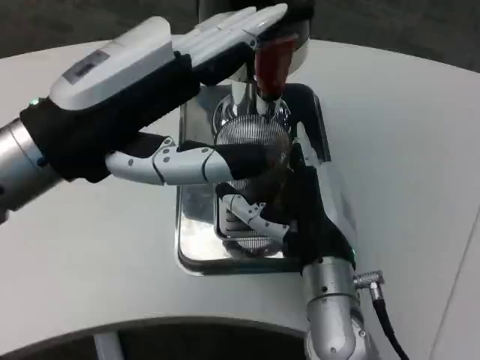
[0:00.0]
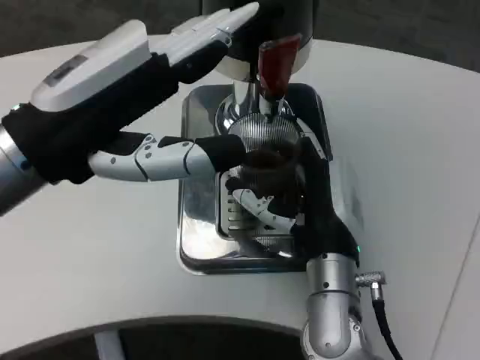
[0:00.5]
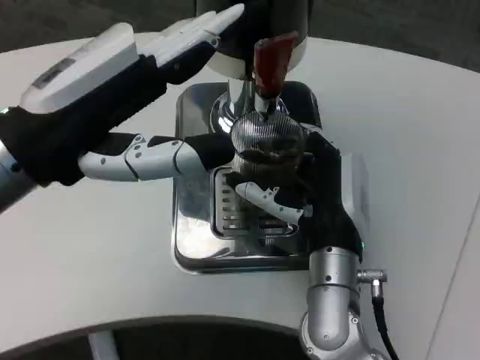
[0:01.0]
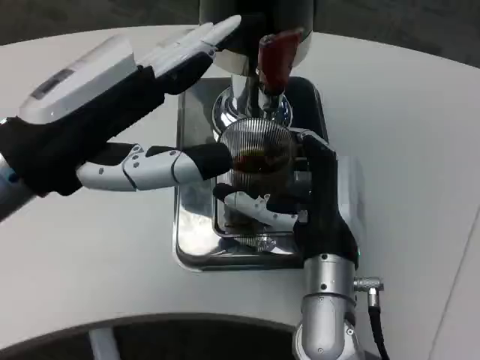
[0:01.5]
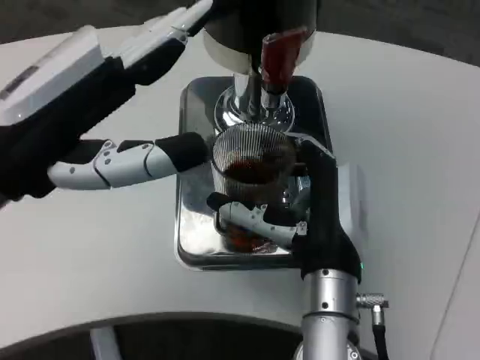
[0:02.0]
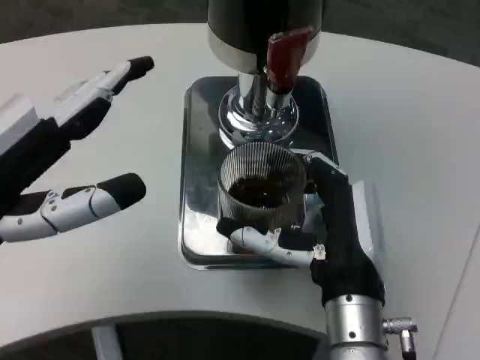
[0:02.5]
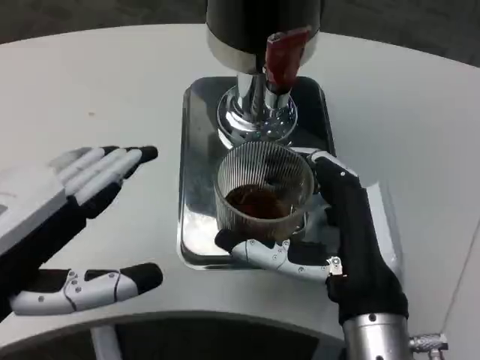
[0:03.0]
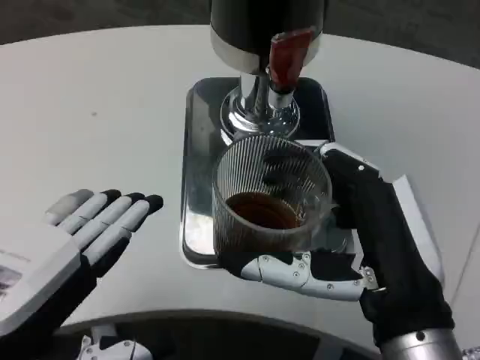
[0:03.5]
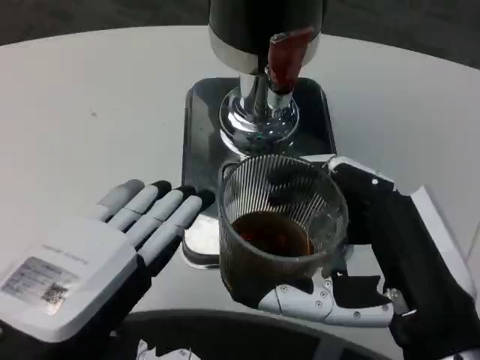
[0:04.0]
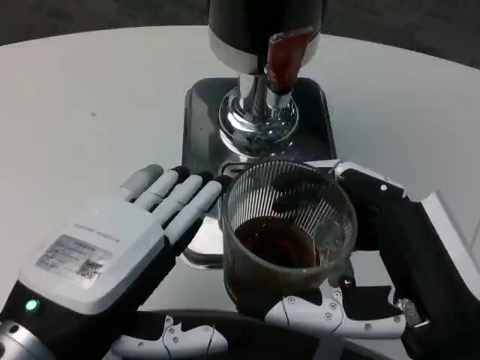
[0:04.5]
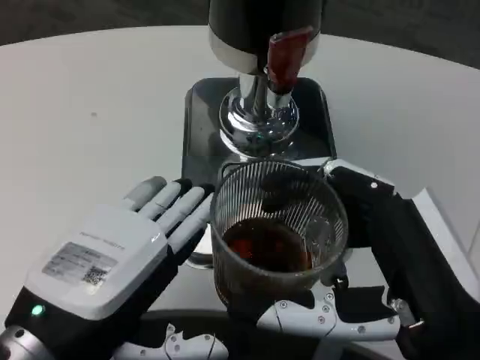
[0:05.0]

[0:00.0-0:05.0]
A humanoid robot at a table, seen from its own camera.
Task of the whole recording: Grasp the cup under the faucet to collect the drink, then remove the cup.
0:00.0 to 0:02.5: The left hand is displaced to the left and backward by some 10 cm.
0:02.5 to 0:05.0: The left hand heads to the right, covering about 10 cm. The right hand goes approximately 15 cm backward, to the right and upward.

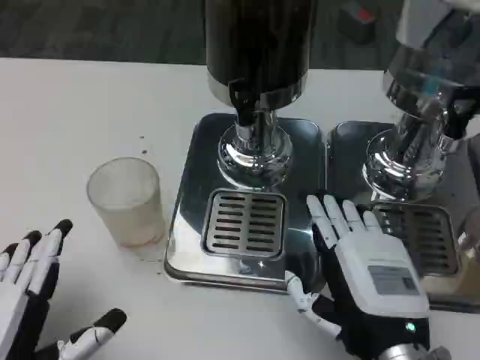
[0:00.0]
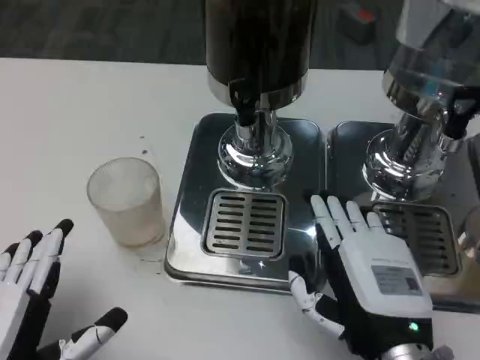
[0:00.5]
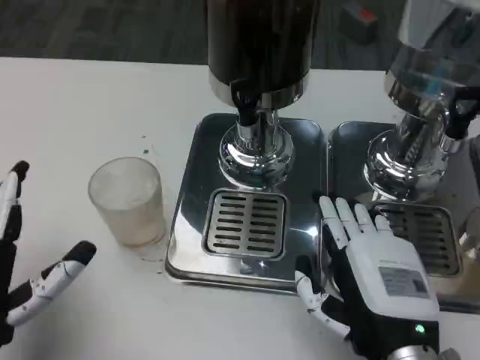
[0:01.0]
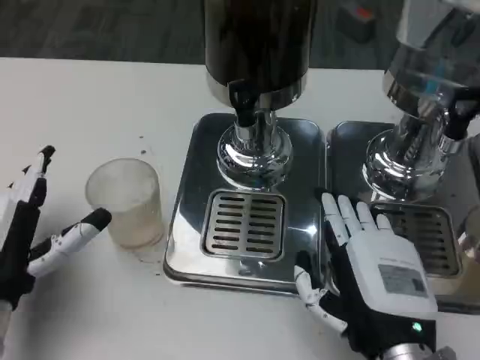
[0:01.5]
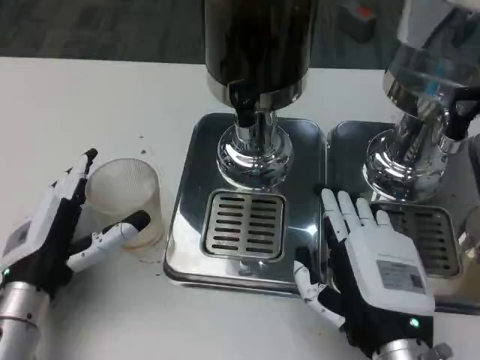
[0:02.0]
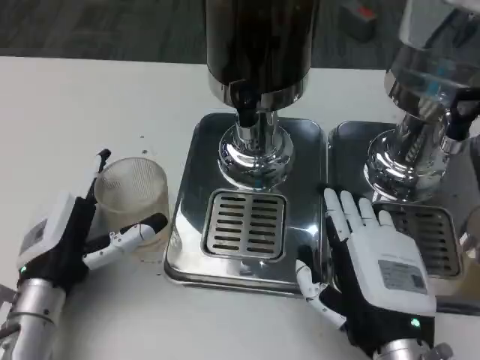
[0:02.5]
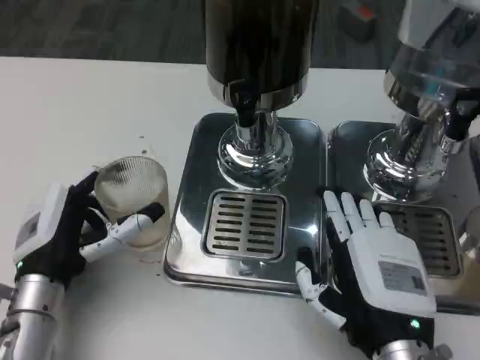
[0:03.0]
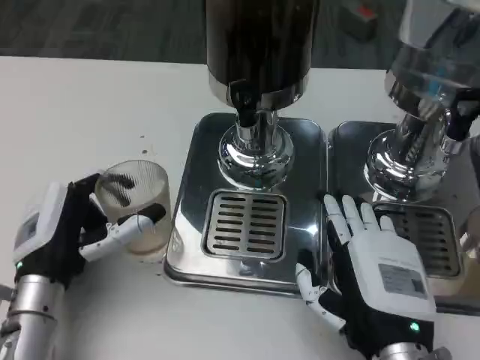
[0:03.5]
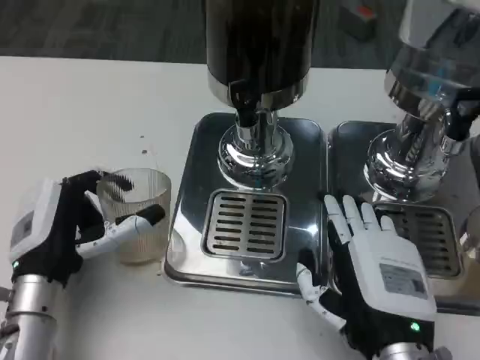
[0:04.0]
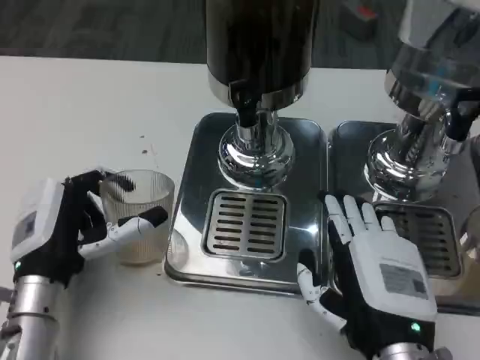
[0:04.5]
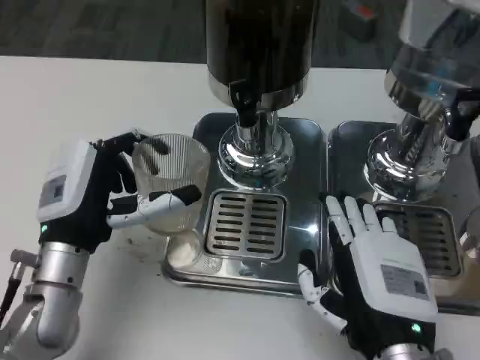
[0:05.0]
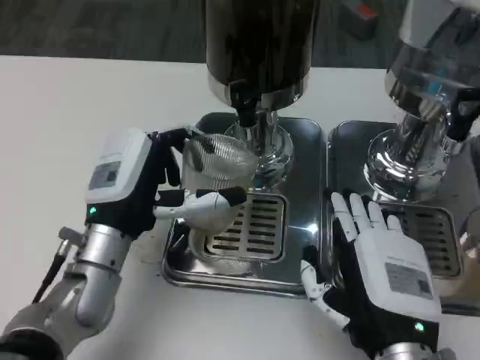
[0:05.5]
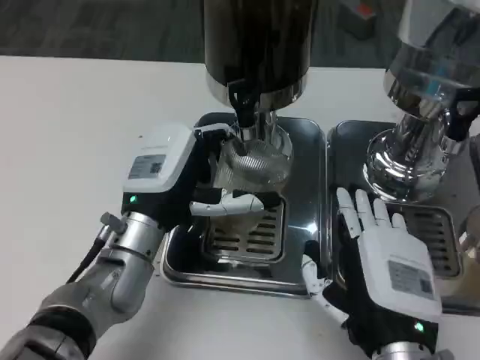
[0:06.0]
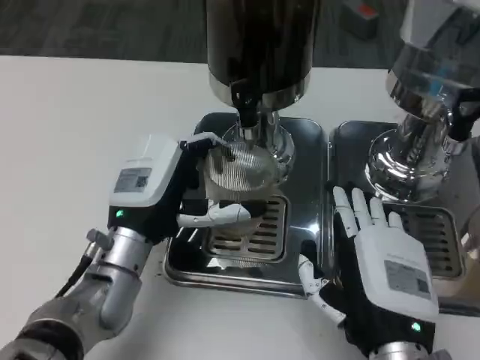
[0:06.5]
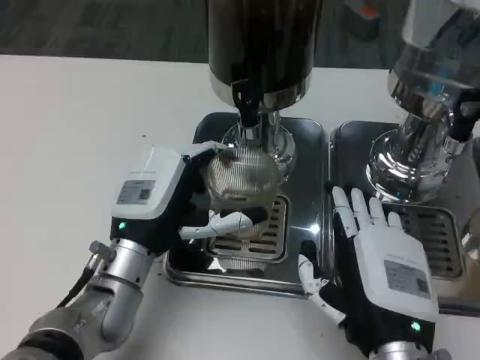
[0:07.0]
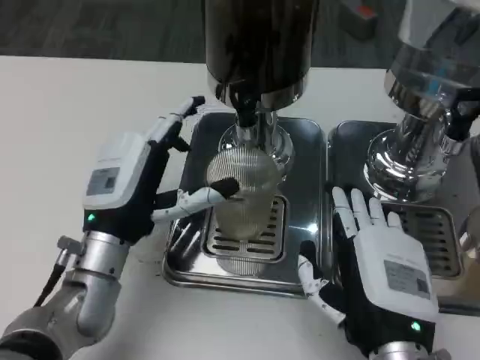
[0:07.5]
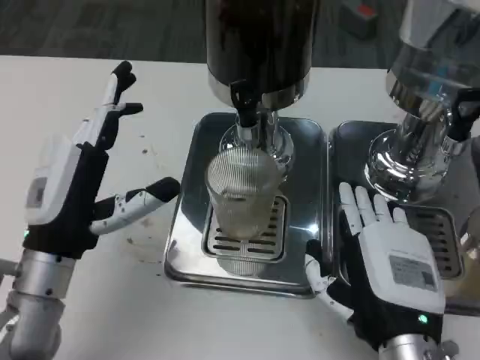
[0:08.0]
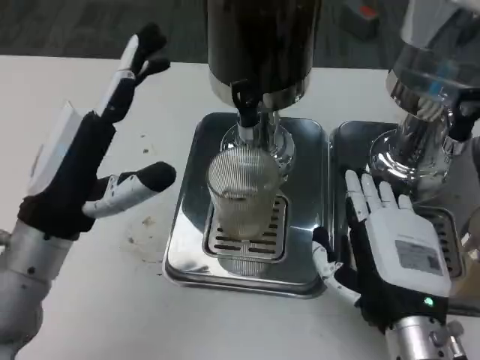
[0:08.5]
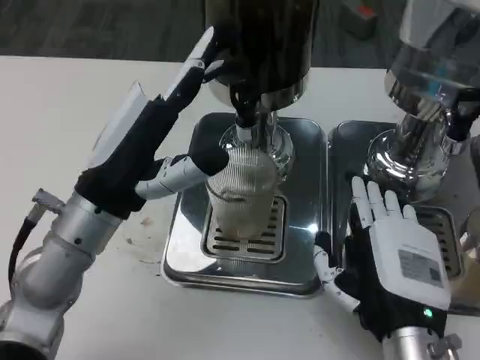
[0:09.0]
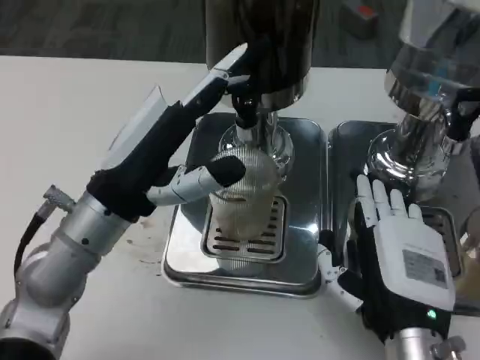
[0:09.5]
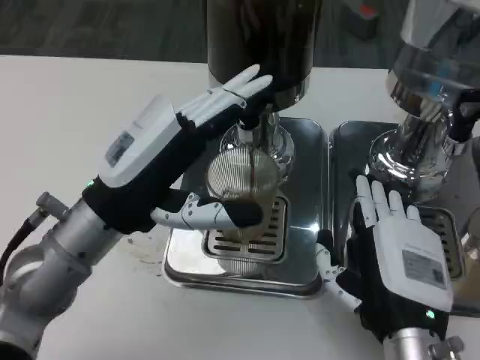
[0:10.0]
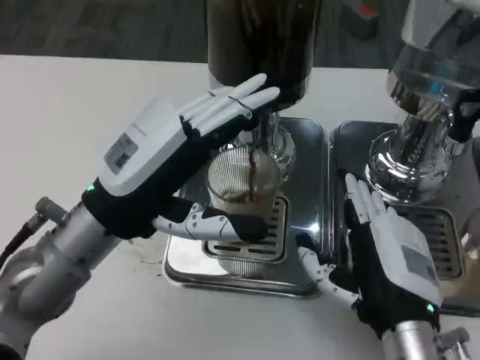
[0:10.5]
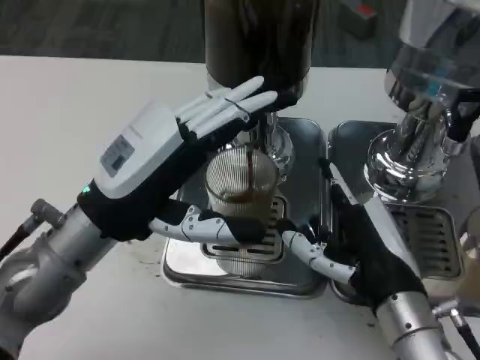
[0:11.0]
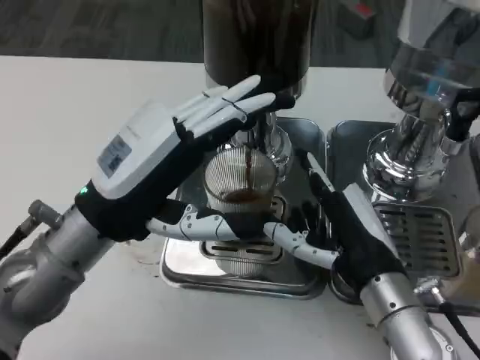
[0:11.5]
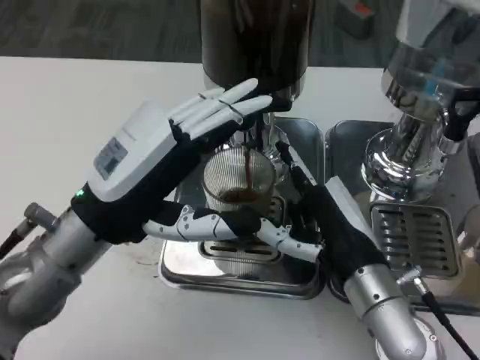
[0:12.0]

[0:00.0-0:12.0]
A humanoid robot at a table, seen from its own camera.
Task of the whole recording: Grasp the cup under the faucet to collect the drink, then remove the cup.
0:00.0 to 0:02.0: The left hand is displaced forward by approximately 10 cm.
0:02.0 to 0:04.0: The hands move only a little.
0:04.0 to 0:06.0: The left hand shifts about 10 cm to the right and forward.
0:06.0 to 0:08.0: The left hand is displaced to the left and backward by approximately 10 cm.
0:08.0 to 0:10.0: The left hand goes approximately 5 cm upward.
0:10.0 to 0:12.0: The right hand is displaced forward by some 5 cm.

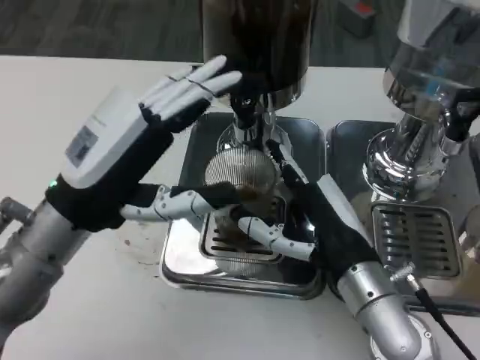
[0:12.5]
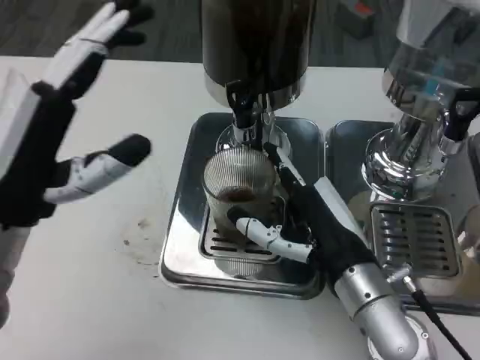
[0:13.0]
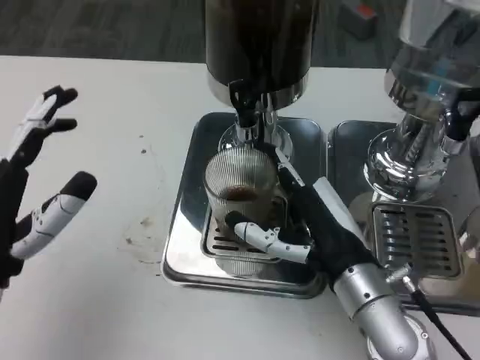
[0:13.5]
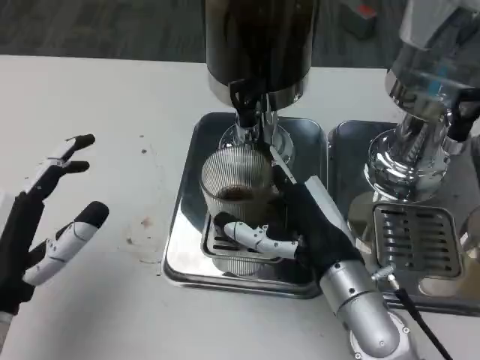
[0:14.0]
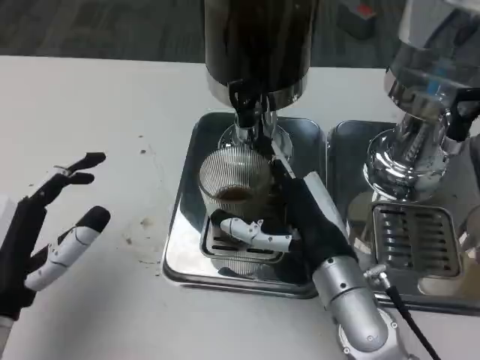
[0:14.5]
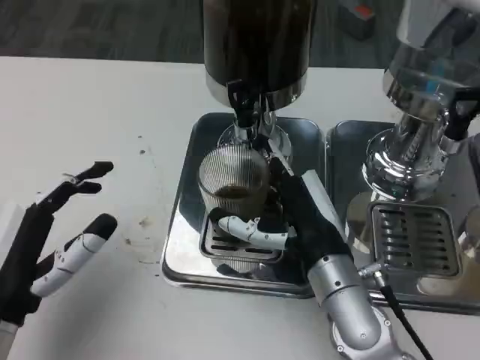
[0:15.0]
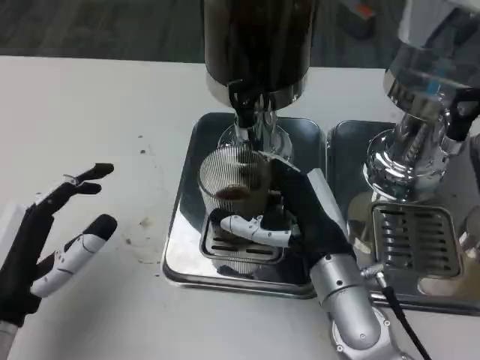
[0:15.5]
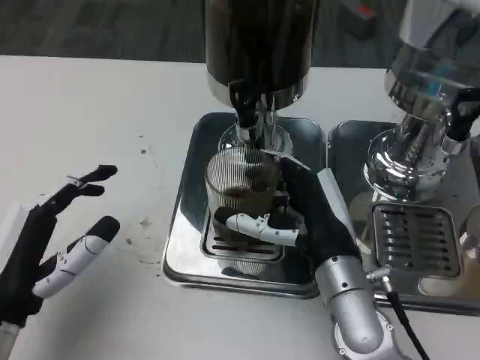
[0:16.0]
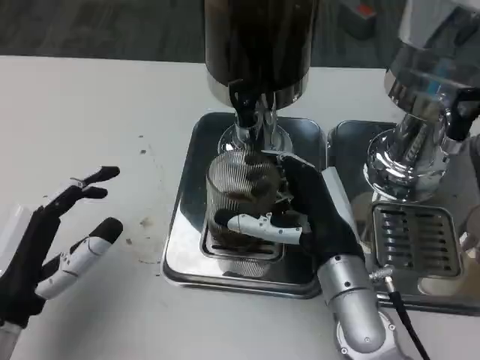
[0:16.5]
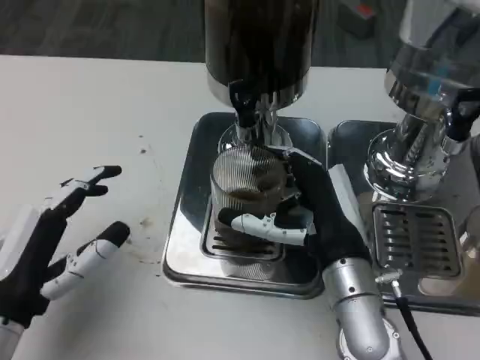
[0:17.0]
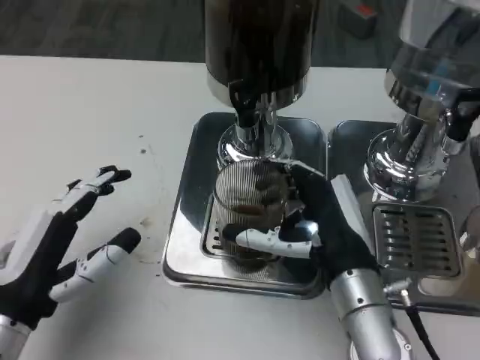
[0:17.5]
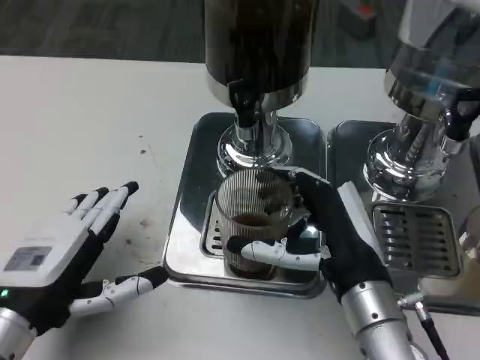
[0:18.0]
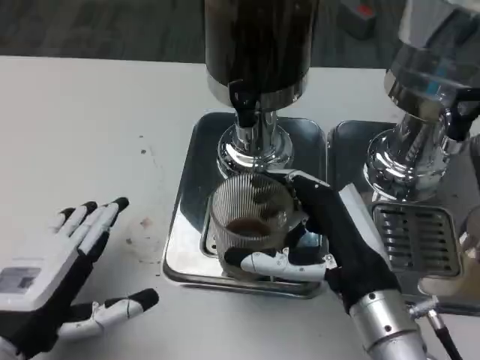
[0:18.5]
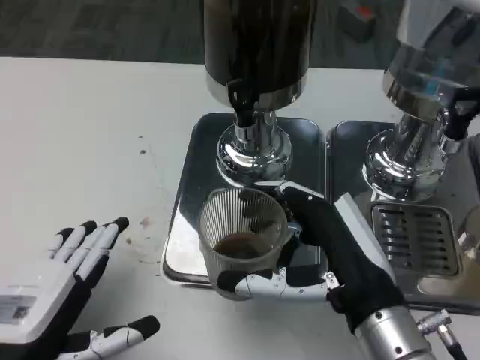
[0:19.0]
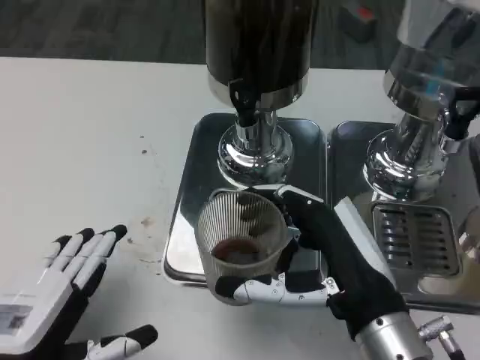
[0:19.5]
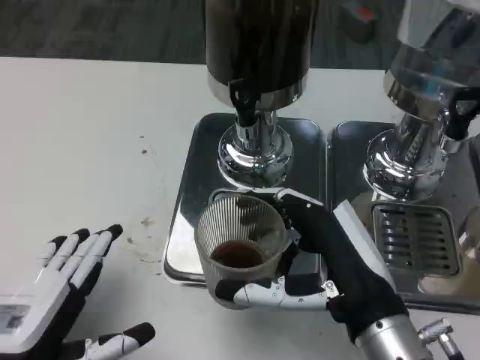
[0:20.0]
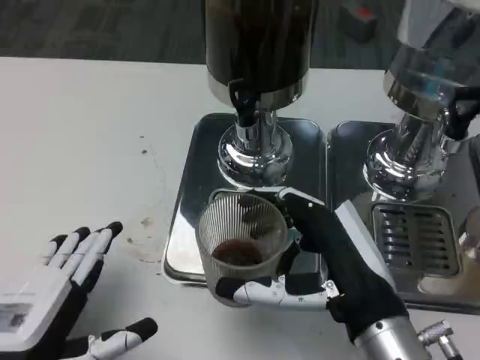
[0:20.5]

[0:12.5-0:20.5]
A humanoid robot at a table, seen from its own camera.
Task of the whole recording: Grasp the cup under the faucet to collect the drink, then remove the cup.
0:12.5 to 0:14.5: The left hand is displaced downward, backward and to the left by roughly 10 cm.
0:14.5 to 0:16.5: The hands move only a little.
0:16.5 to 0:18.5: The right hand shifts some 5 cm backward.
